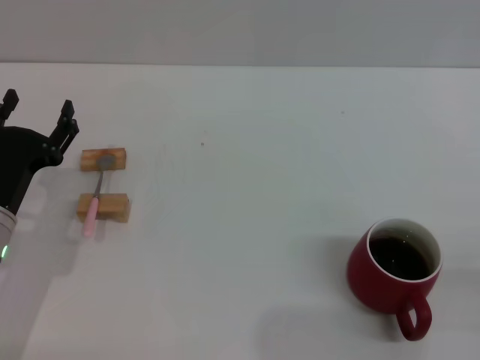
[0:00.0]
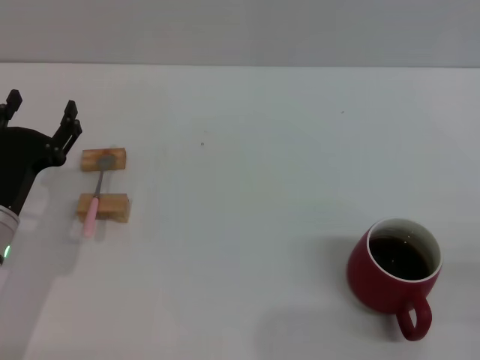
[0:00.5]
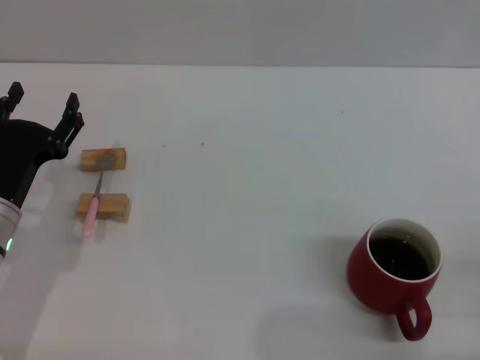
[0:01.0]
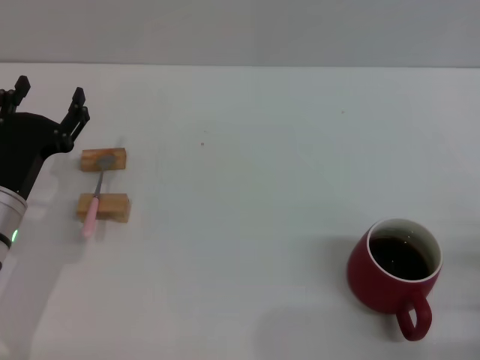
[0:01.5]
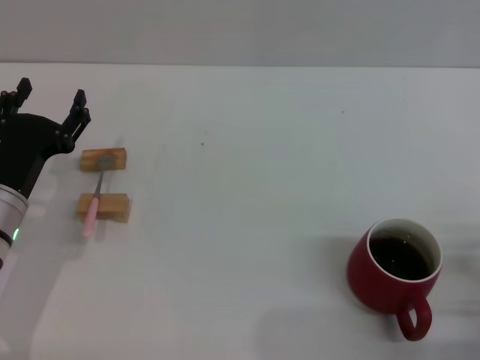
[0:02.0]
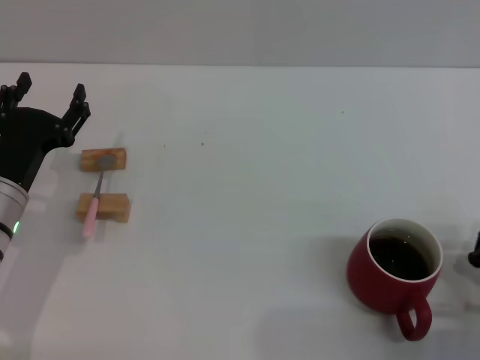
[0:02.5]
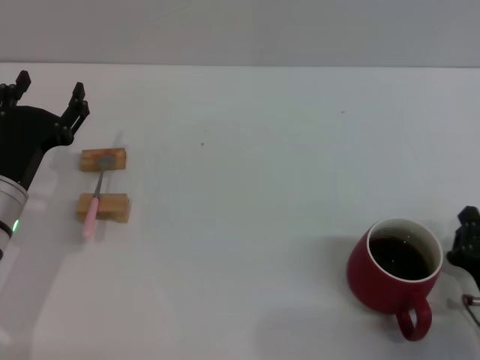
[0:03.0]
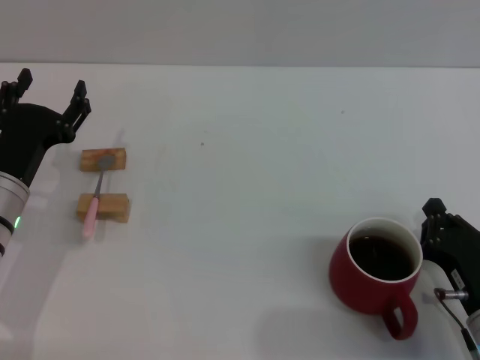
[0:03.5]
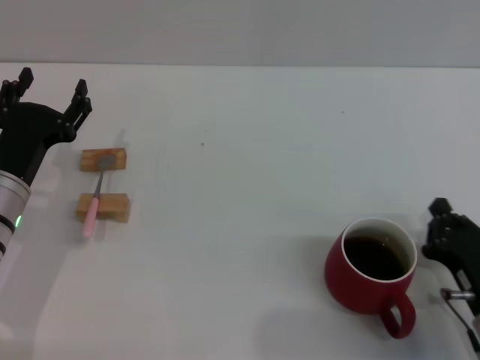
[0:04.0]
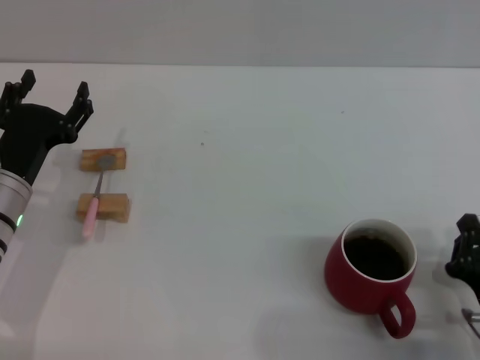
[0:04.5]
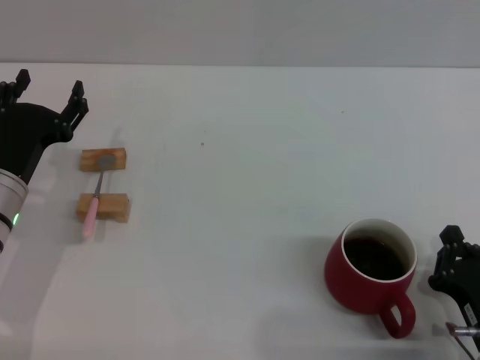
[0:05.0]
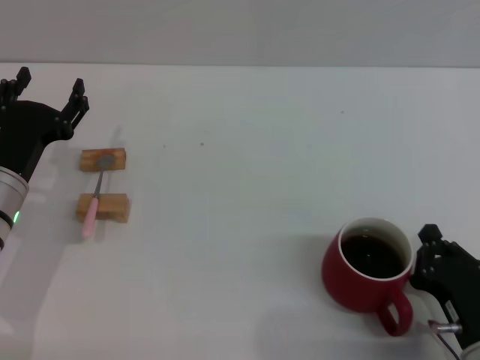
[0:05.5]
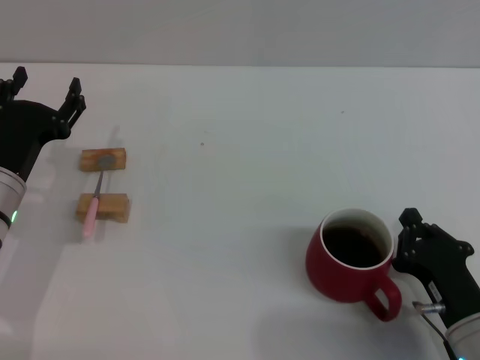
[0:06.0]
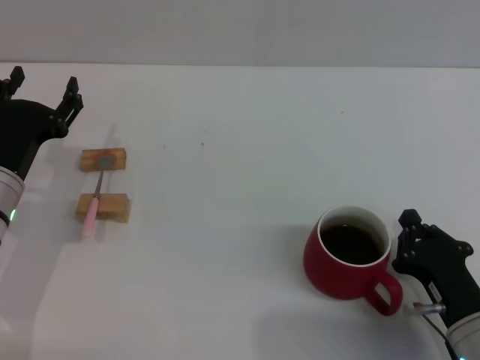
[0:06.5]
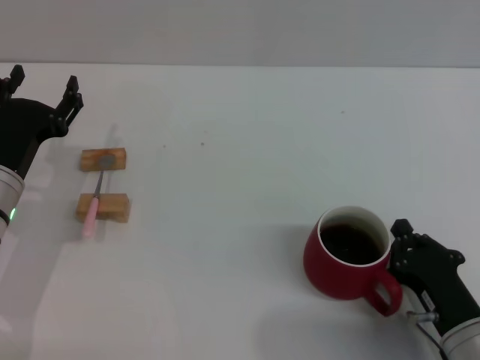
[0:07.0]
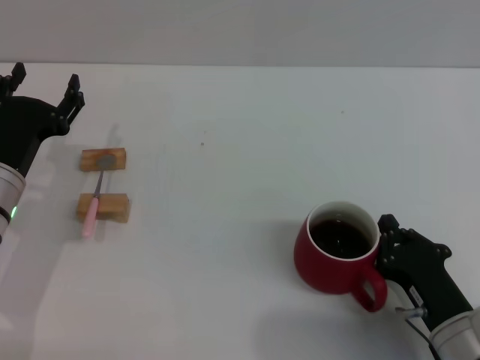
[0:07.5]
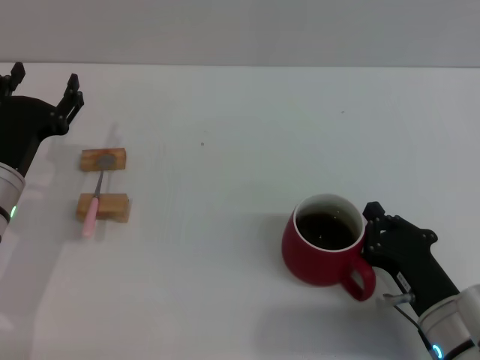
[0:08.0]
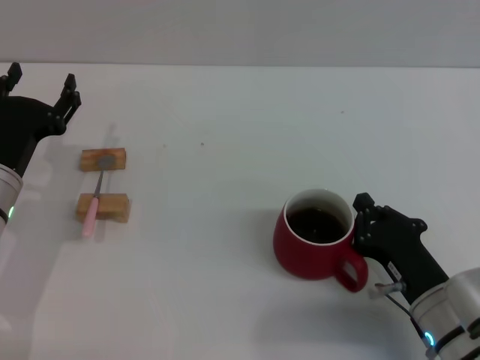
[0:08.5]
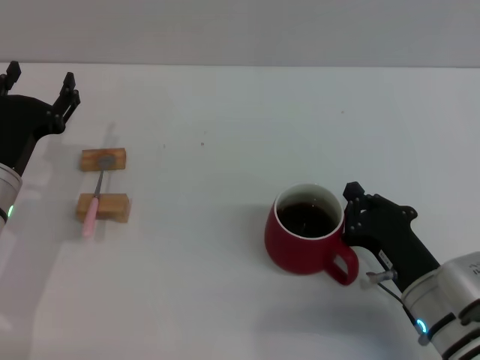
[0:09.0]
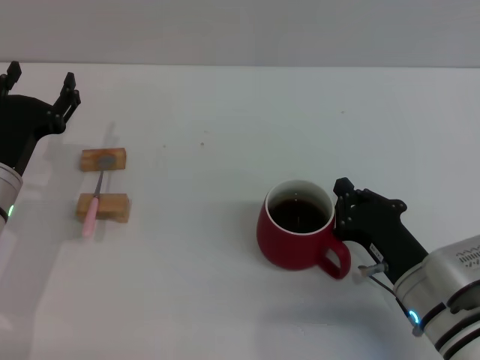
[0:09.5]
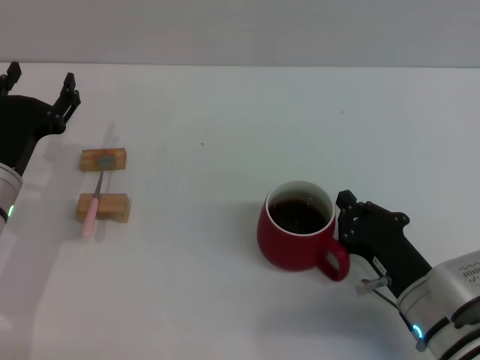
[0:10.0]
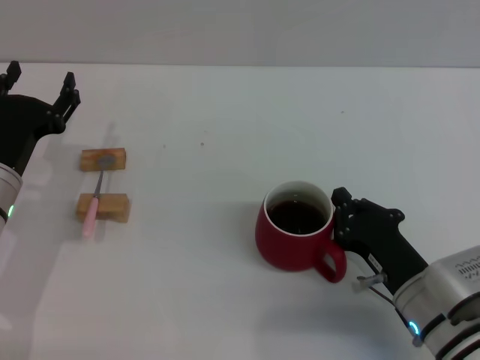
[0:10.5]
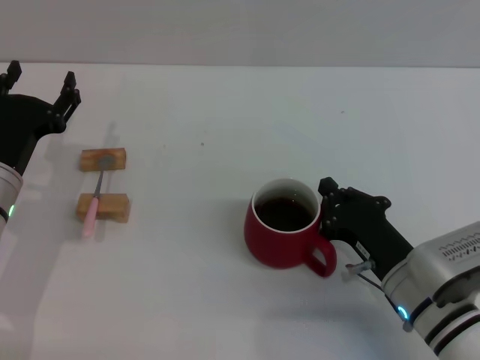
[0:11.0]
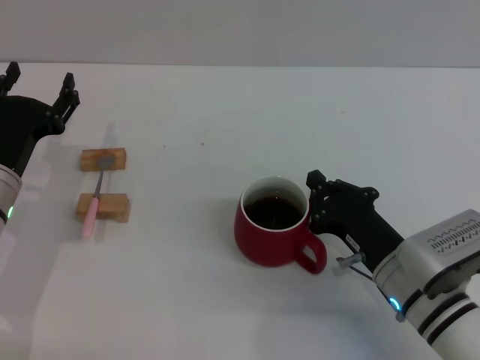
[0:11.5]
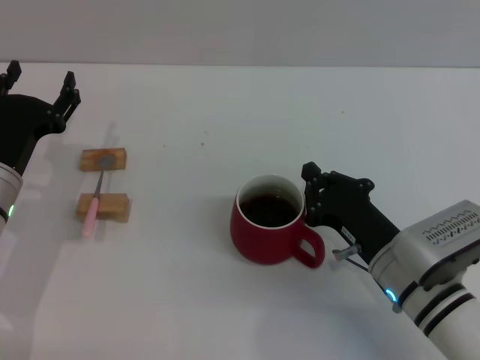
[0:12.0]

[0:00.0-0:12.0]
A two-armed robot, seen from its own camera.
Task of the whole recording: Move the red cup to the center, lift the pink spoon, stir it three times in the cup, and put the spoon into the cup.
0.0 to 2.0 s: The right gripper shifts by approximately 5 cm, and closes.
2.0 to 4.0 s: The right gripper heads to the left, covering approximately 5 cm.
4.0 to 8.0 s: The grippers stay close to where they were, moving slightly.
8.0 to 10.0 s: The grippers make only small movements.
10.0 to 12.0 s: The grippers move only a little.

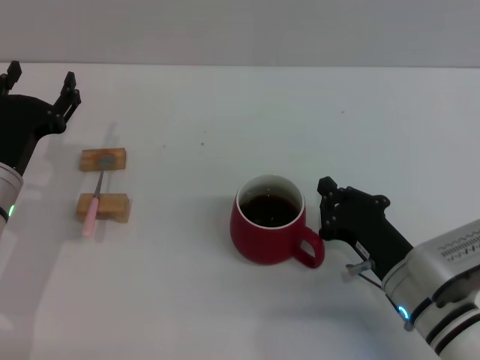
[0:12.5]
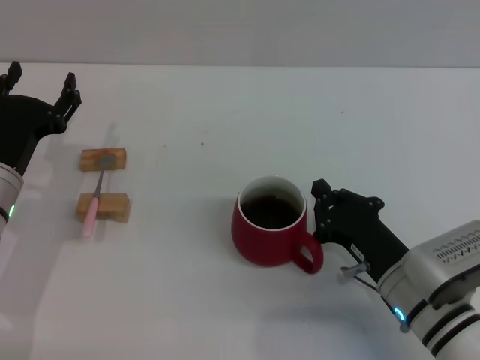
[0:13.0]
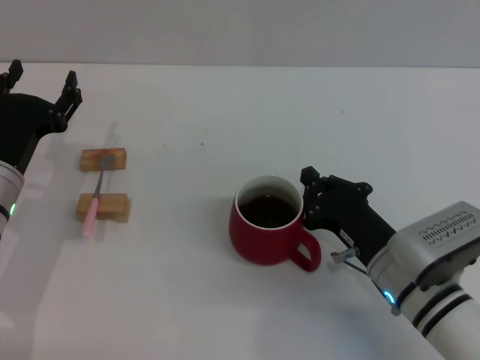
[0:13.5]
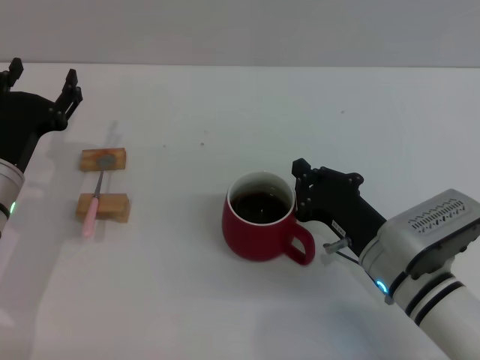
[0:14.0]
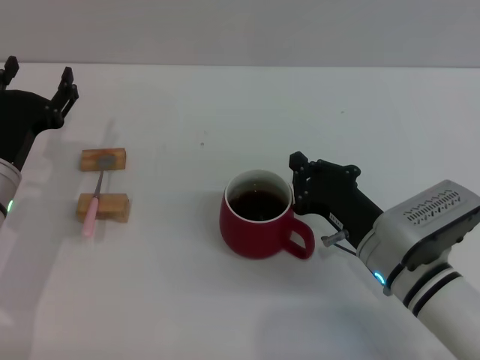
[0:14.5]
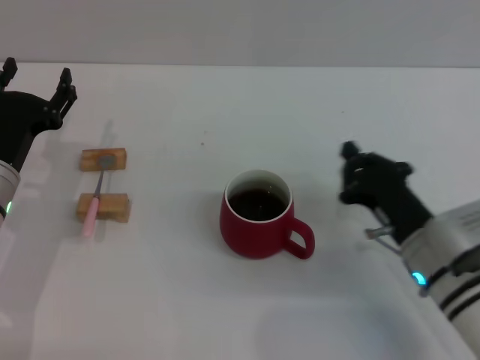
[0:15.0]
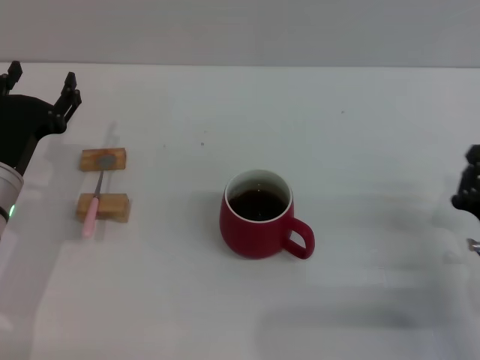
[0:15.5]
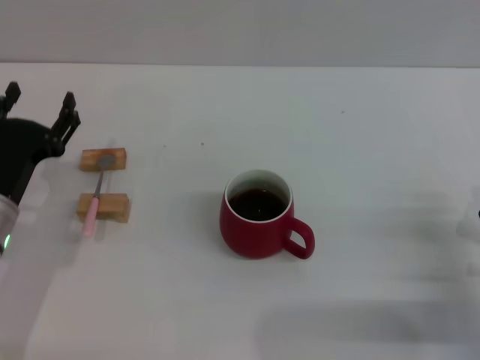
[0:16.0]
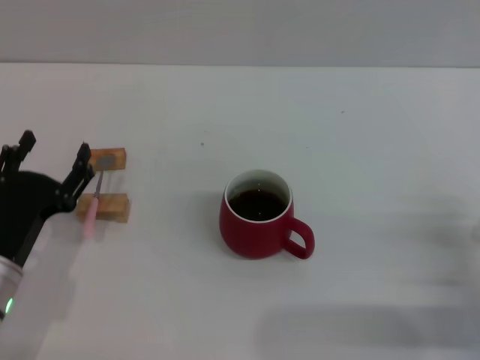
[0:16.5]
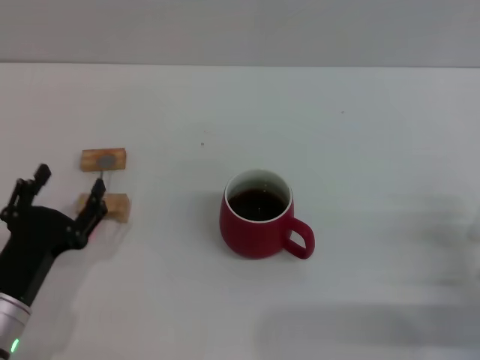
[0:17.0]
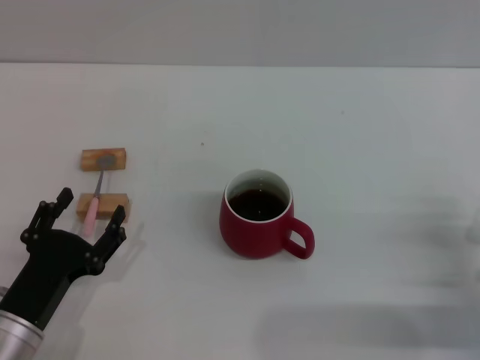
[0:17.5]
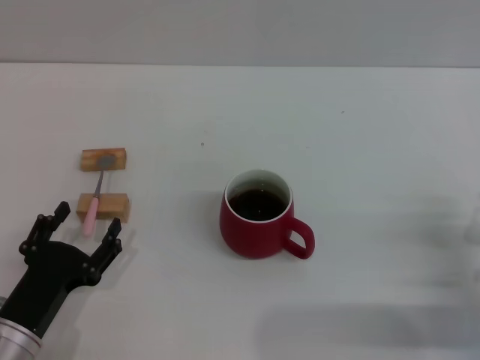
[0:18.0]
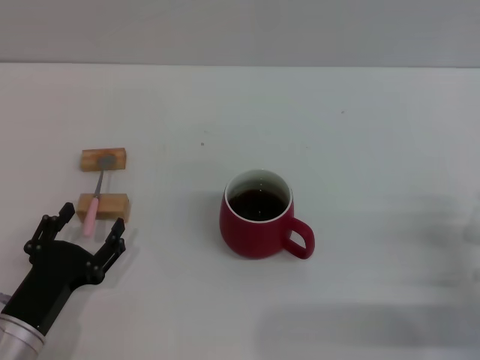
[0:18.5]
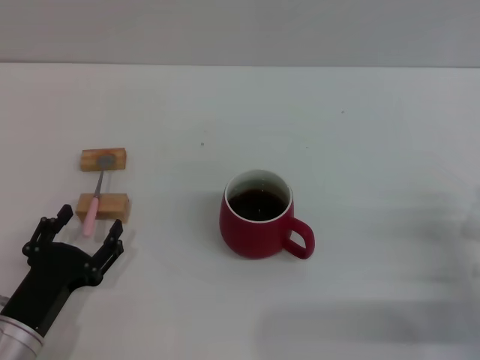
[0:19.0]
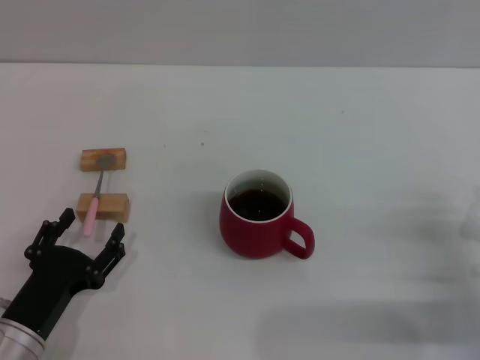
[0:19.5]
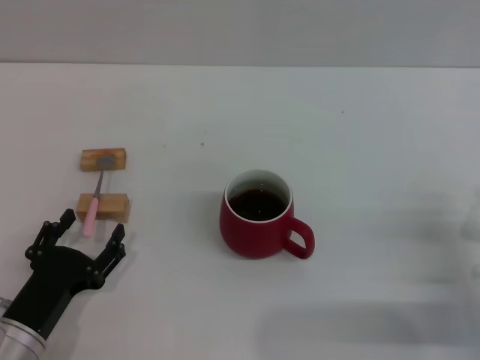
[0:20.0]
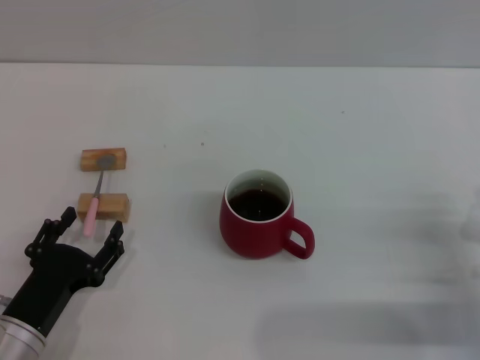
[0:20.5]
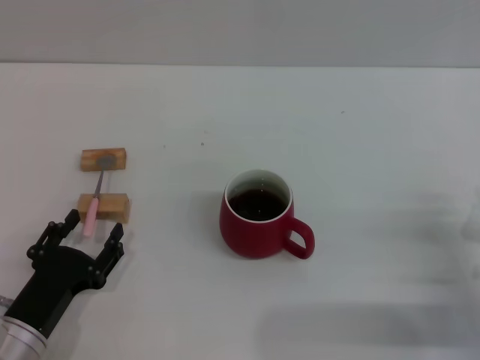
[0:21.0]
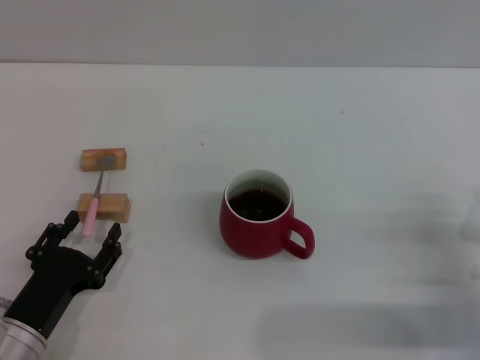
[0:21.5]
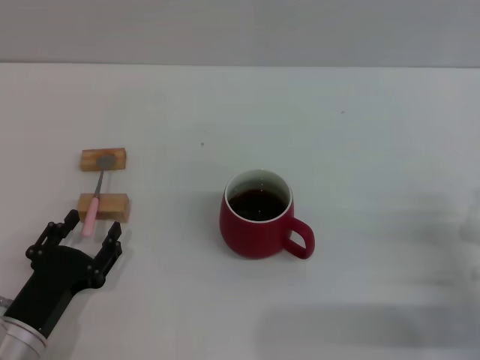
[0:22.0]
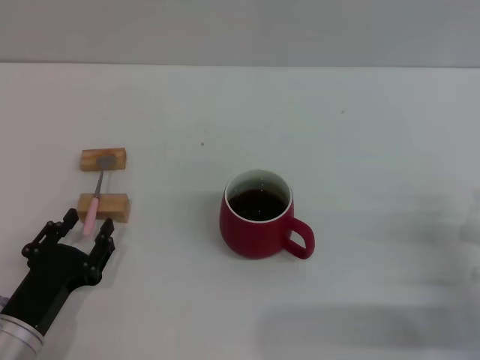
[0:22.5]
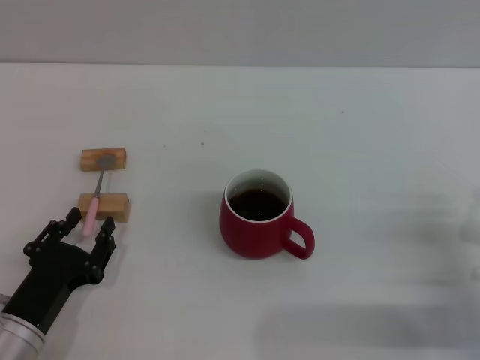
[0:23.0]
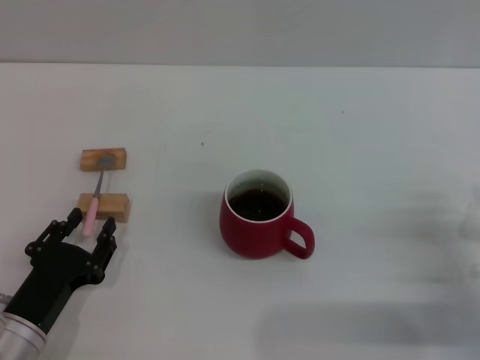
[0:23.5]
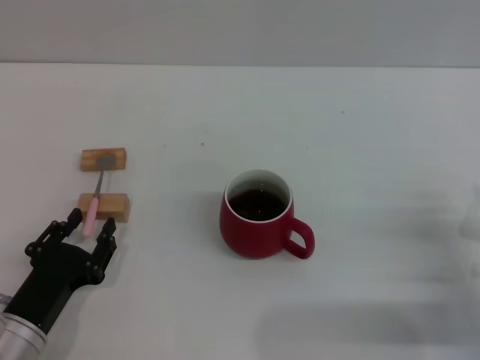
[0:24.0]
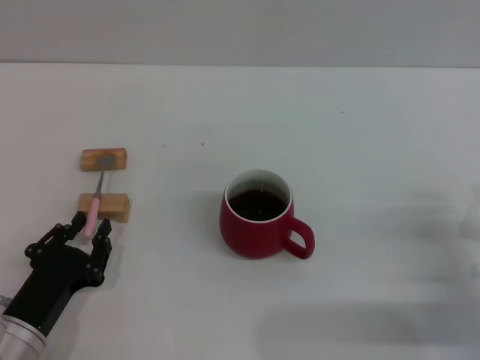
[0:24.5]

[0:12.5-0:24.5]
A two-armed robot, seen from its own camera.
Task of the whole recording: Move the red cup to the center, lift the pink spoon, stir it three times in the cup, and put the spoon into the cup.
Step, 12.5 to 16.0 s: Move the cup with coffee to the center of view with the right gripper.
12.5 to 14.5 s: There are only small adjustments of the grippers.
14.5 to 16.5 s: The left gripper heads backward, covering about 10 cm; the right gripper travels to the right and backward by roughly 15 cm.
16.5 to 18.5 s: The left gripper changes place by about 5 cm.
18.5 to 24.5 s: Neither gripper changes place.

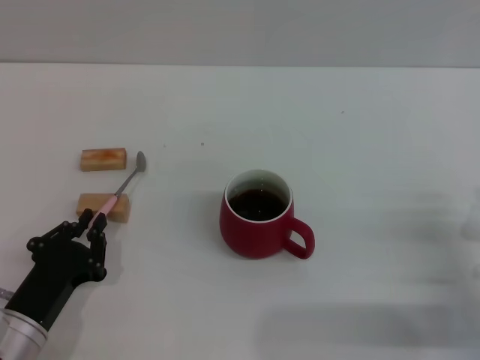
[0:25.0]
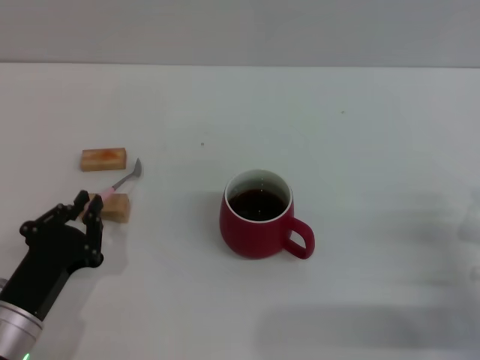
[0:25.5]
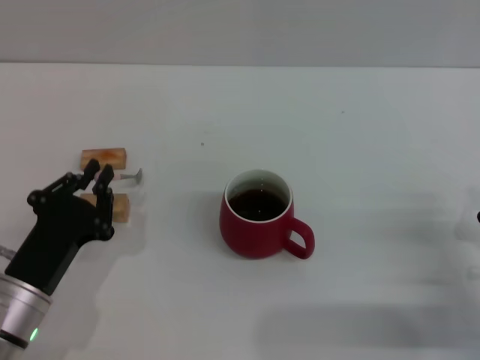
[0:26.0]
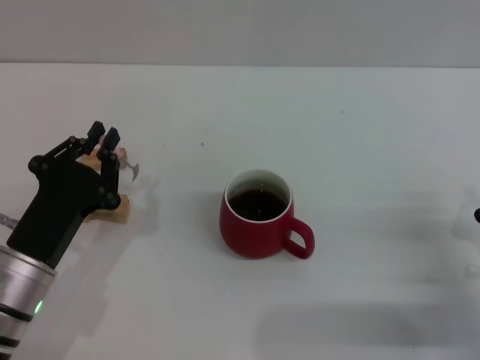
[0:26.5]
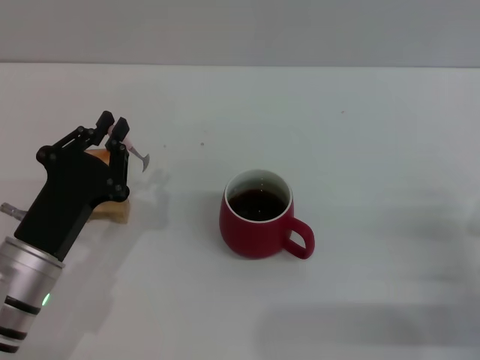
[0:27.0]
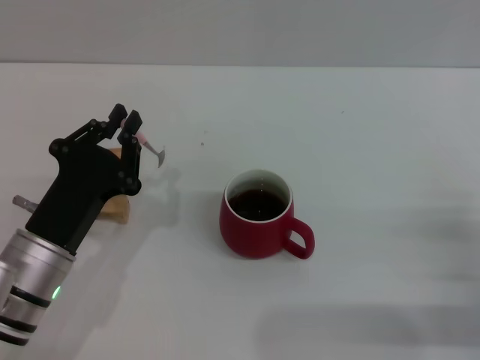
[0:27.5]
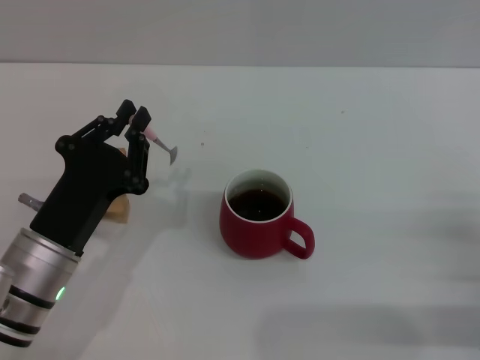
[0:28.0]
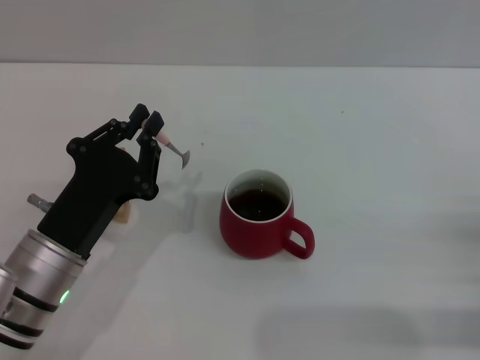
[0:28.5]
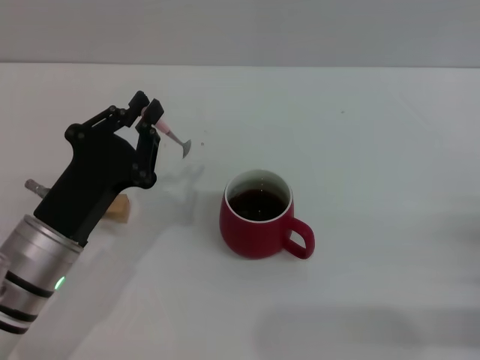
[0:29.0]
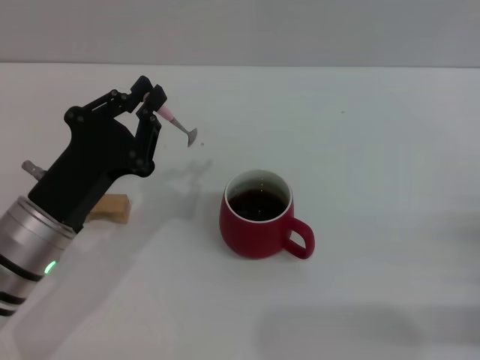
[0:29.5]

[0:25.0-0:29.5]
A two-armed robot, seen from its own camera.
Task of the whole recording: Move the red cup to the center, lift the pink spoon, stir it three times in the cup, and put the spoon into the cup.
Step, 25.0 to 29.0 s: Pick up the spoon with the left gripper.
25.0 to 27.0 s: The left gripper heads upward, covering about 5 cm.
27.0 to 29.5 s: The grippers move only a little.
